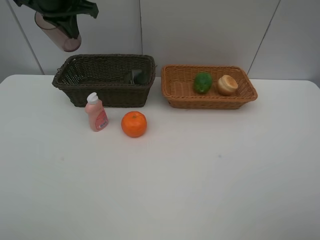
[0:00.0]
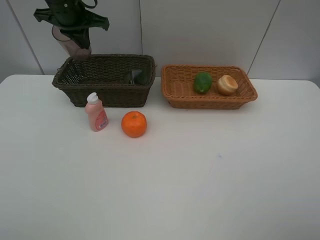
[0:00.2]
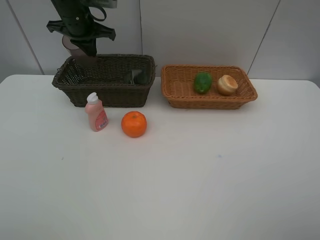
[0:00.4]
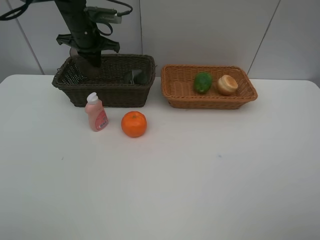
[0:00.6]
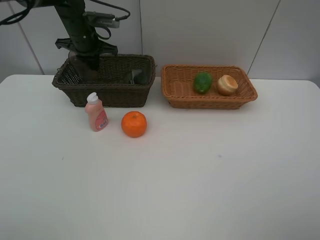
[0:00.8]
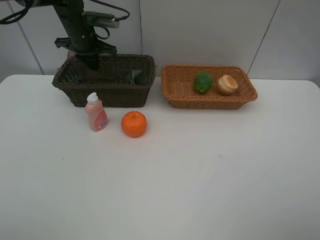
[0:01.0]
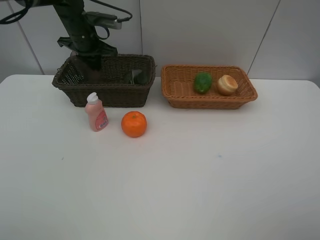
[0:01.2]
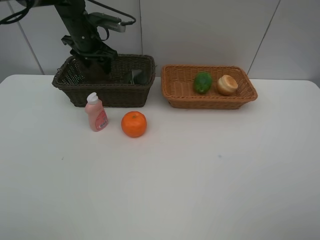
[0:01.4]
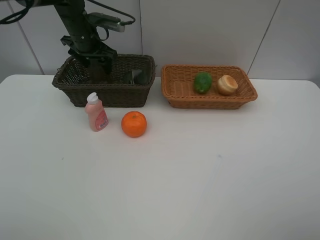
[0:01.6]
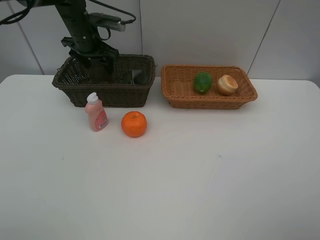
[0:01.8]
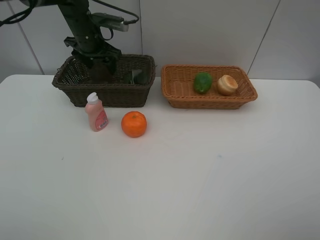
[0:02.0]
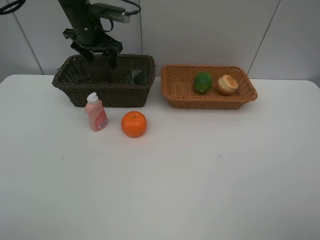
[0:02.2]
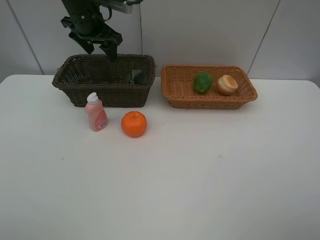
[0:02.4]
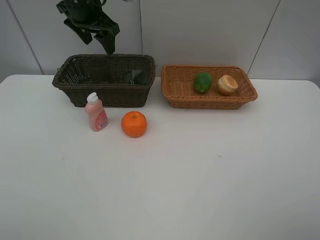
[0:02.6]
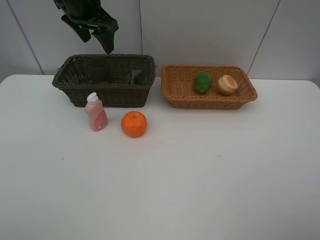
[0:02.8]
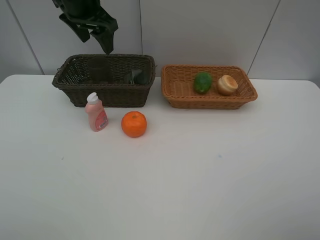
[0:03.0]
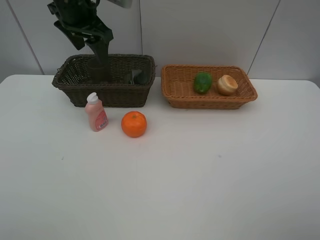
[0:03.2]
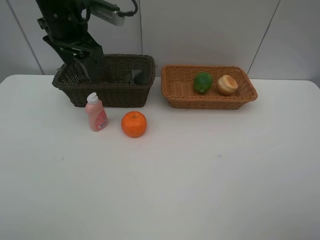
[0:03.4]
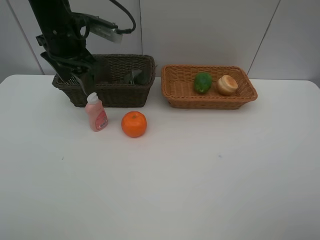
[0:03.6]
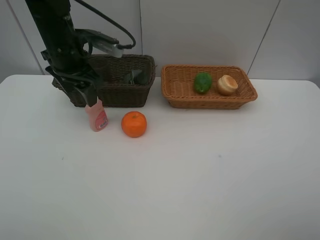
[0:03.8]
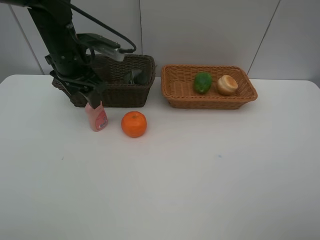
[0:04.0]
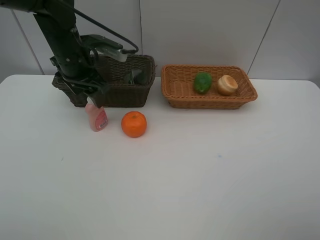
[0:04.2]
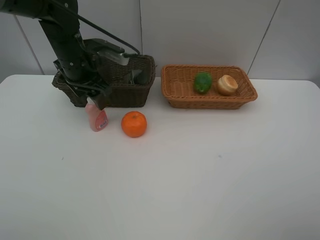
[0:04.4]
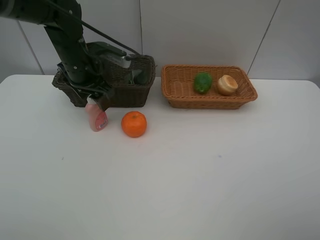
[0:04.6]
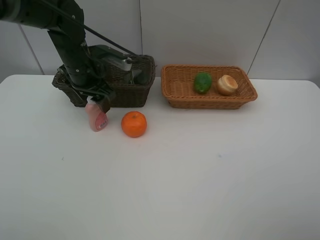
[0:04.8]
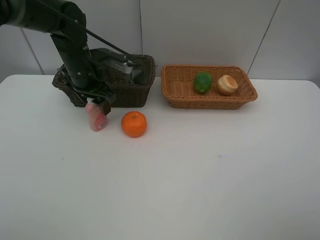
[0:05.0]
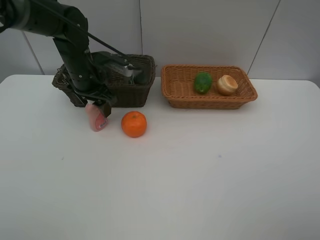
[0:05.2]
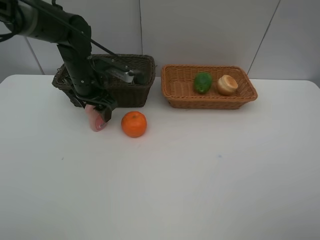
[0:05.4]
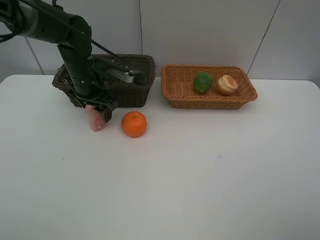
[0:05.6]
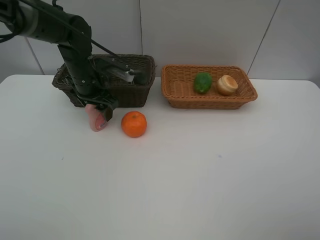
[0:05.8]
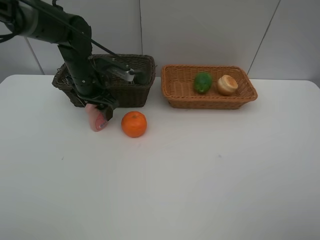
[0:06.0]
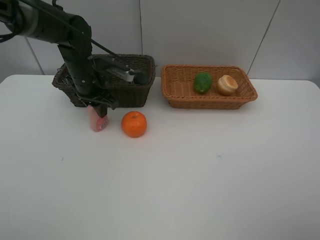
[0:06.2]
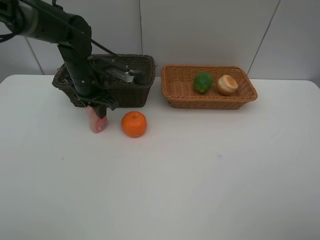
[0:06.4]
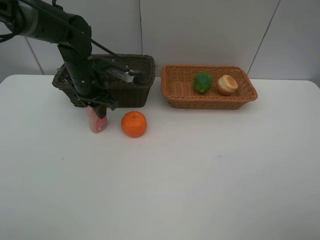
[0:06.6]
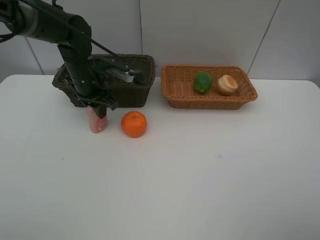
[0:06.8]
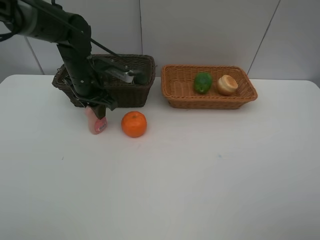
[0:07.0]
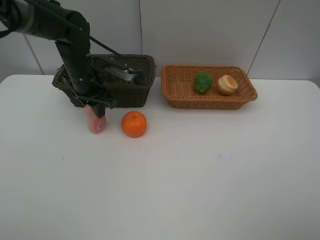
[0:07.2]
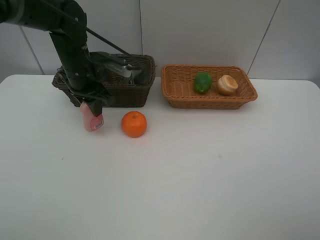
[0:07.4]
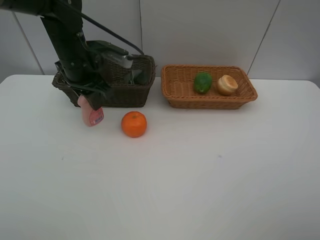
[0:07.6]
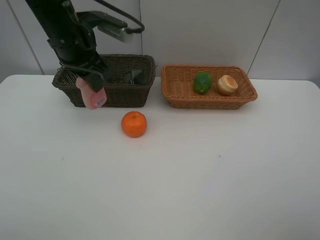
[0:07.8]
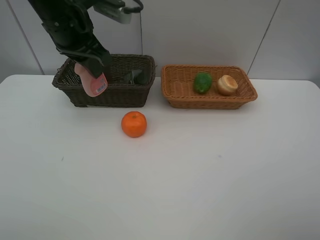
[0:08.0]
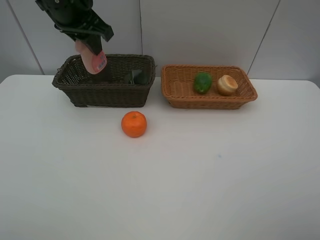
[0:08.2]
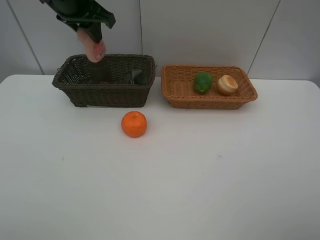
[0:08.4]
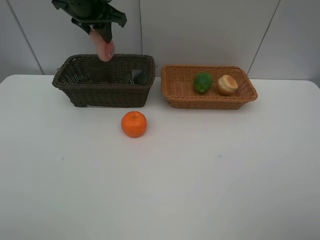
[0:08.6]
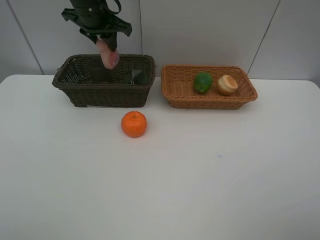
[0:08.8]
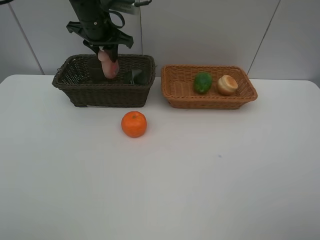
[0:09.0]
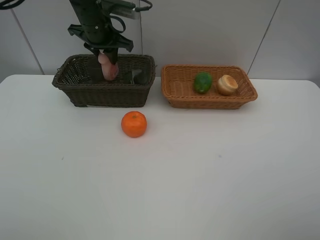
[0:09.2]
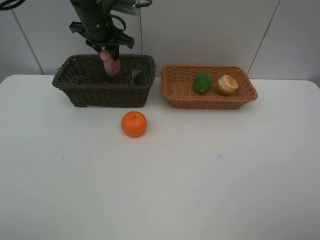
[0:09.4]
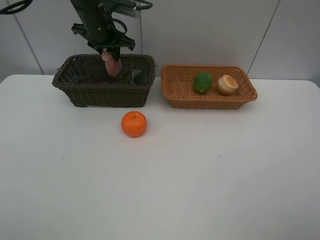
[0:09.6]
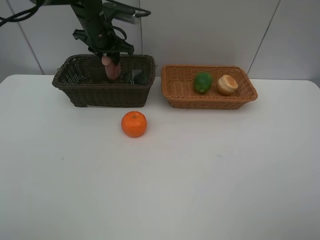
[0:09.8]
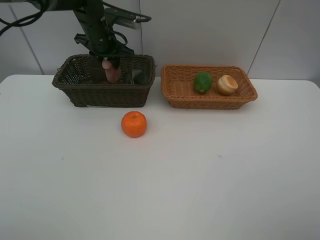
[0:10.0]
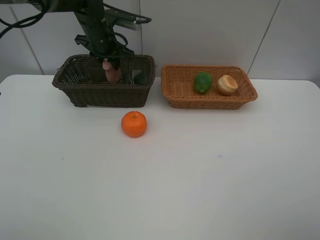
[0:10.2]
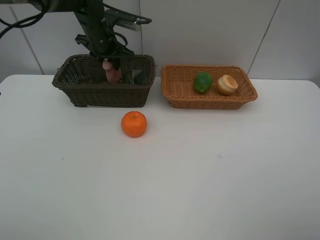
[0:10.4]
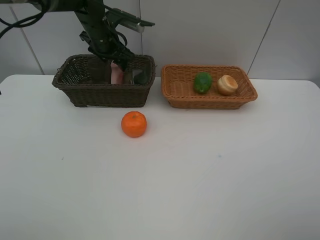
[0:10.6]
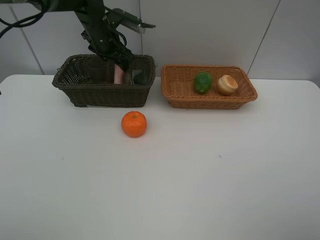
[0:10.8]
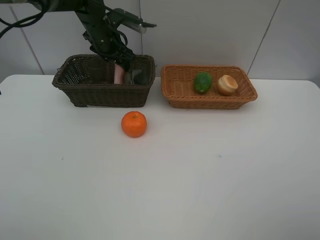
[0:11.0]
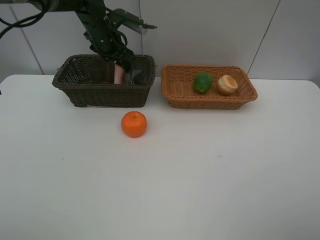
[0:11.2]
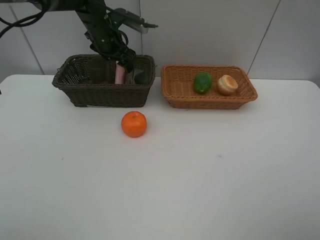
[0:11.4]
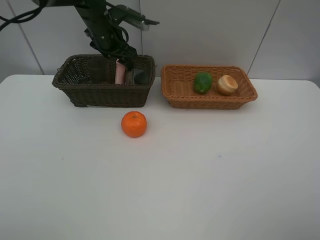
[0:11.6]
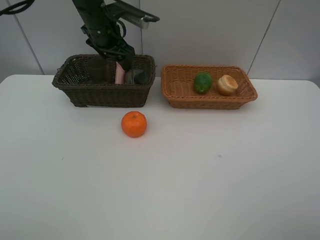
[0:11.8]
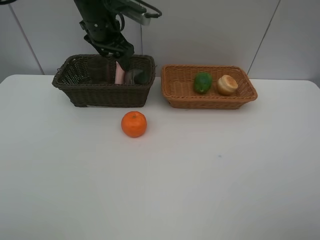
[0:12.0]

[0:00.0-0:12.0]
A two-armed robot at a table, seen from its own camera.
Task of the whole recording: place multiple objects separately in different baskets.
0:00.0 to 0:01.6: The left gripper travels downward and forward by approximately 15 cm, and opens its fingers.
0:01.6 to 0:03.0: The left gripper travels upward and backward by about 15 cm.
0:03.0 to 0:04.4: The left gripper travels downward by about 10 cm.
0:04.4 to 0:06.0: The left gripper changes place by roughly 5 cm.
0:06.0 to 0:07.6: The left gripper travels upward by roughly 5 cm, and closes up.
0:07.6 to 0:09.0: The left gripper heads forward, covering about 10 cm.
0:09.0 to 0:10.4: The left gripper shifts by about 5 cm.
0:10.4 to 0:12.0: The left gripper shifts roughly 5 cm upward, and opens its fingers.

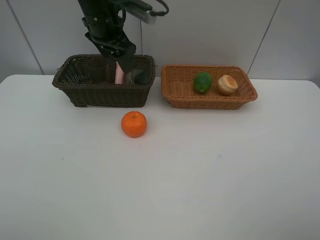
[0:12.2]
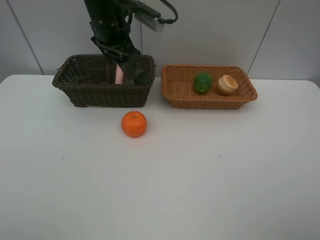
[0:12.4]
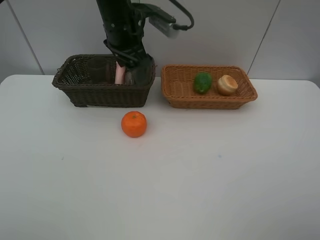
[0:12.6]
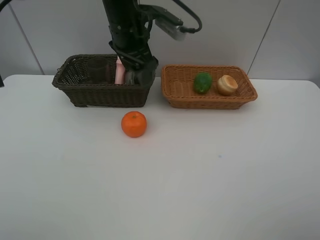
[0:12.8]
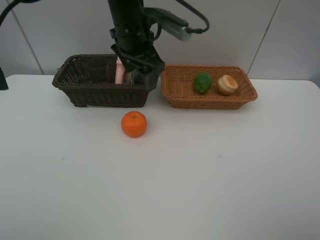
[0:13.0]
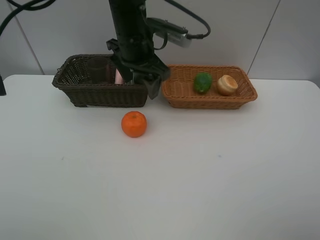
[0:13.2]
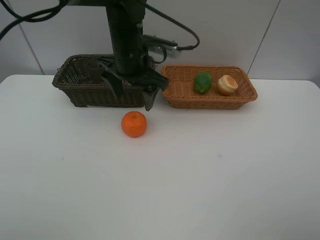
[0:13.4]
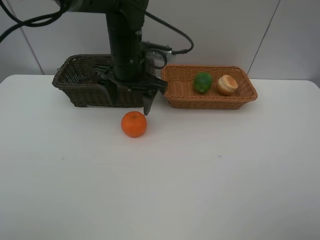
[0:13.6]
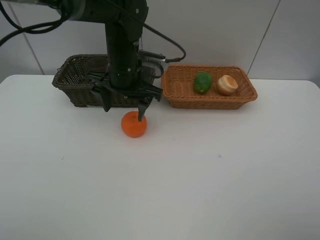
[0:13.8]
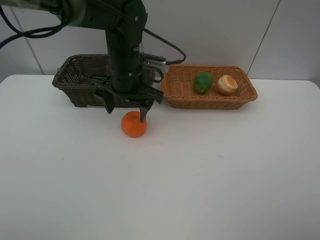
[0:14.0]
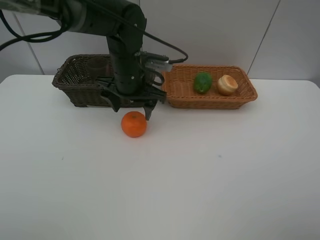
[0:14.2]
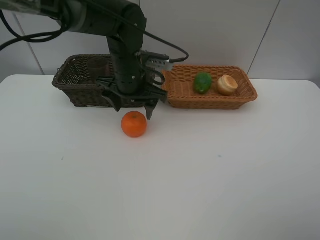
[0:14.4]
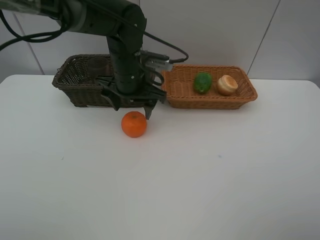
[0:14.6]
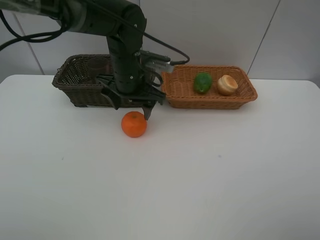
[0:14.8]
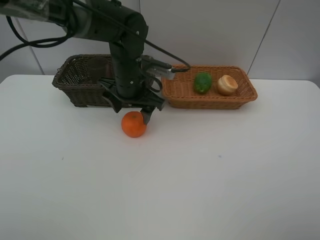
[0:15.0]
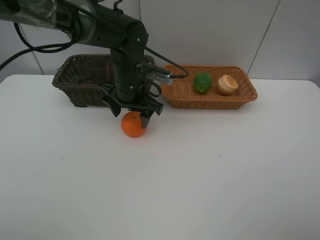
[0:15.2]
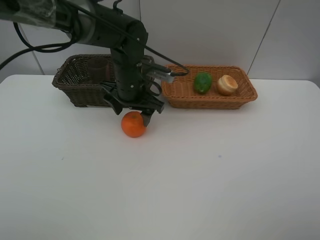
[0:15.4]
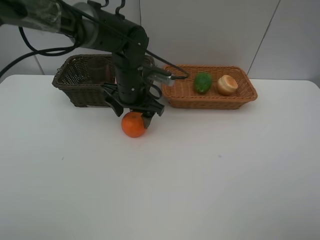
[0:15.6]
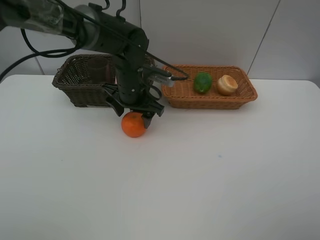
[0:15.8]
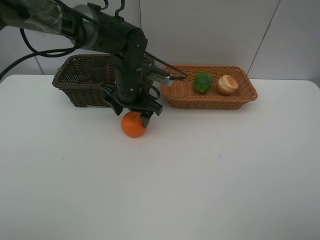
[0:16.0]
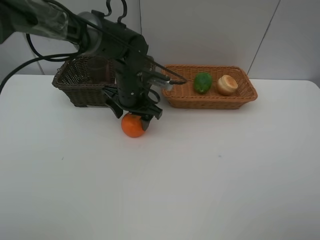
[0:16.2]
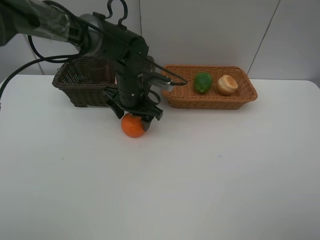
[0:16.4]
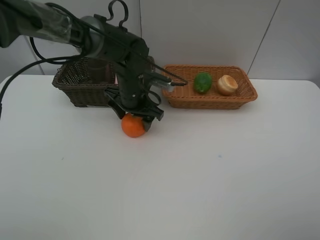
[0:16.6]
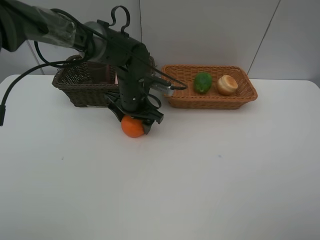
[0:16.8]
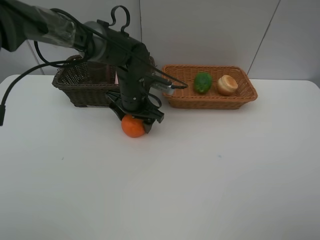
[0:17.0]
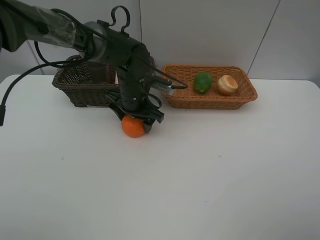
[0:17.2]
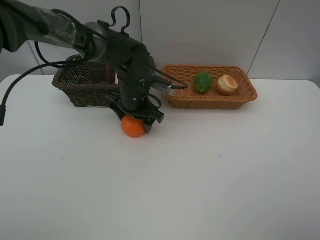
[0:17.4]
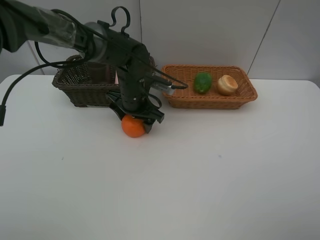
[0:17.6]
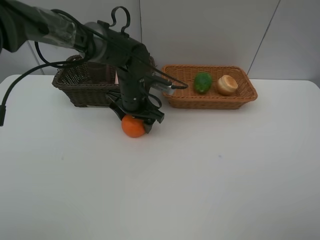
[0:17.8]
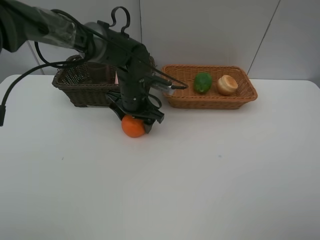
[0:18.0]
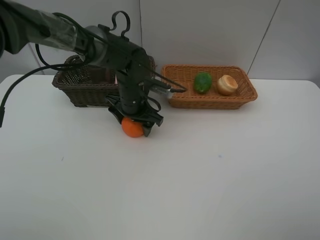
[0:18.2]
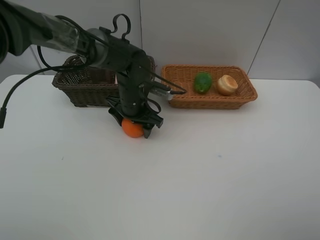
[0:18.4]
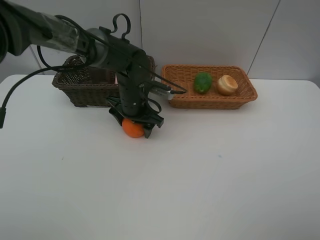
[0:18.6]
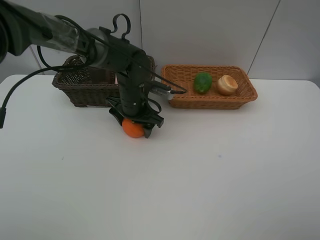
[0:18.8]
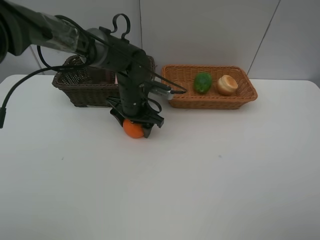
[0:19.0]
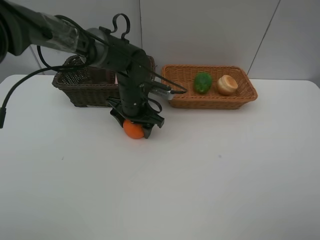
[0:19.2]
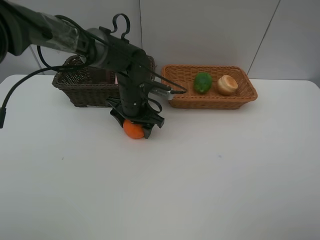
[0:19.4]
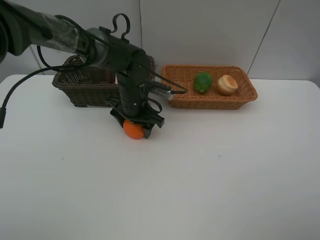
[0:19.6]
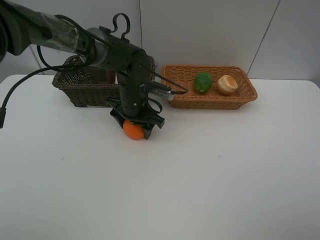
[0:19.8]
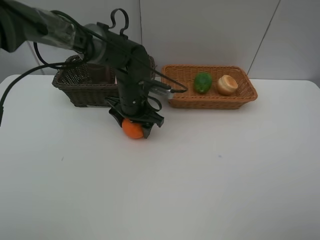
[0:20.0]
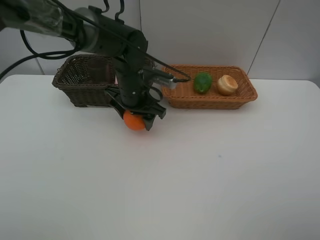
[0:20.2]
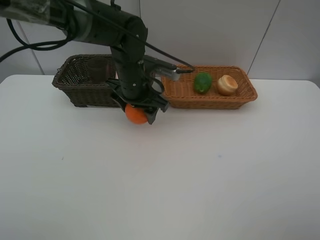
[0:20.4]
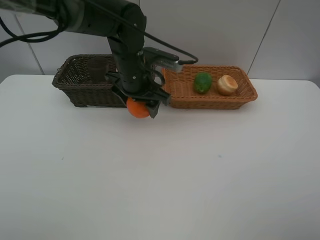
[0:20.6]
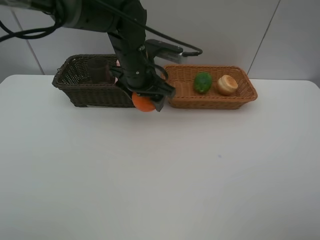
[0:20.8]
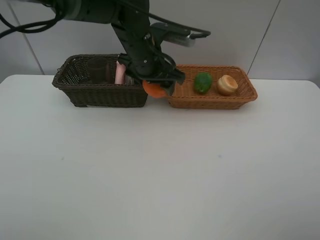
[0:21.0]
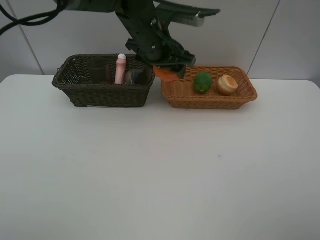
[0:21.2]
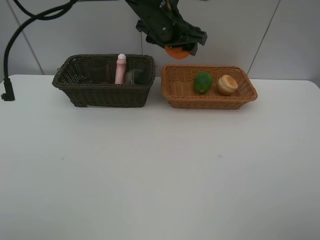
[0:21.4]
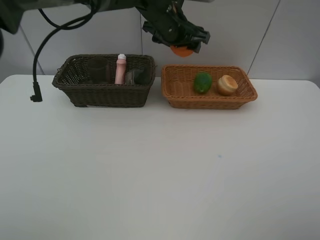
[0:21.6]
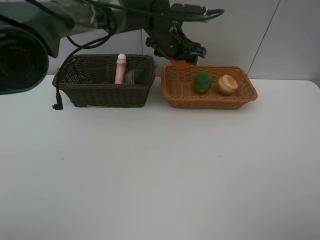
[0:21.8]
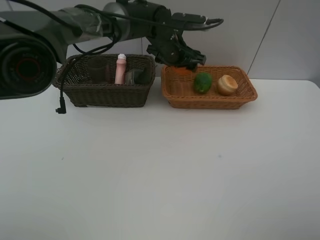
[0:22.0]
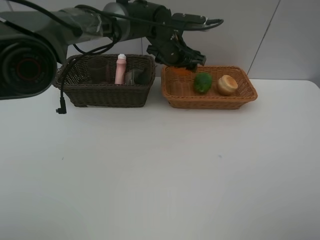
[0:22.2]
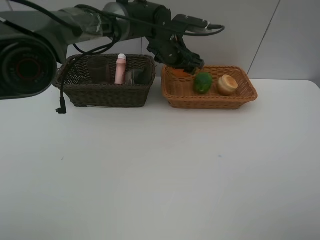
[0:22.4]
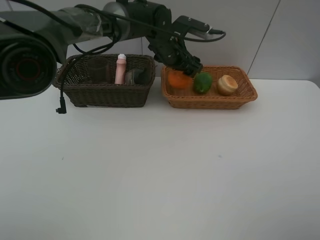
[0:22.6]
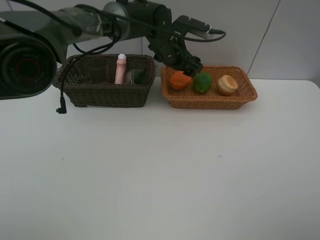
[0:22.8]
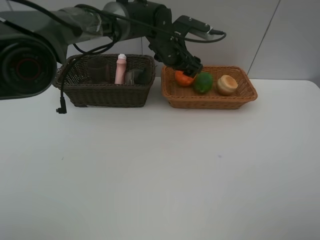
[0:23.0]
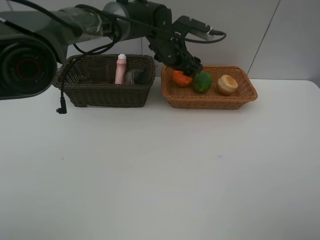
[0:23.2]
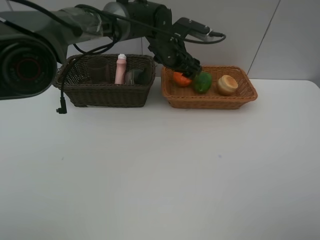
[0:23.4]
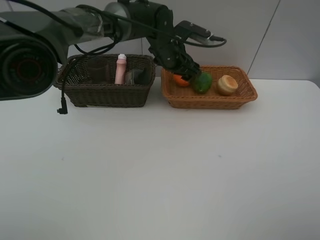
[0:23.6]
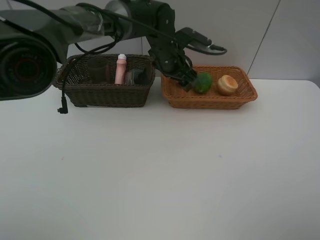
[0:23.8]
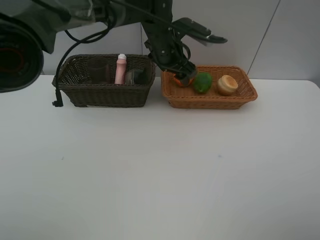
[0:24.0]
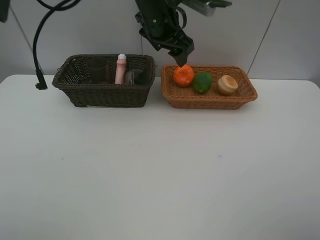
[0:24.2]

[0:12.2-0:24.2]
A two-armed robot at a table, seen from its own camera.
Task of the whole recording: place multiple objects separately in different baskets.
0:12.2 to 0:13.8: The left gripper is displaced downward, backward and to the right by approximately 10 cm.
0:13.8 to 0:15.2: The grippers stay close to where they were, moving slightly.
0:15.2 to 0:18.2: There are only small adjustments of the grippers.
0:18.2 to 0:19.8: Both grippers stay put.
0:19.8 to 0:21.2: The left gripper goes roughly 15 cm upward.
0:21.2 to 0:22.6: The left gripper is displaced forward and downward by approximately 10 cm.
0:22.6 to 0:24.2: The left gripper goes some 10 cm upward.
